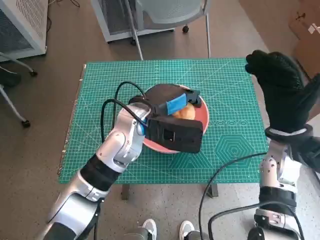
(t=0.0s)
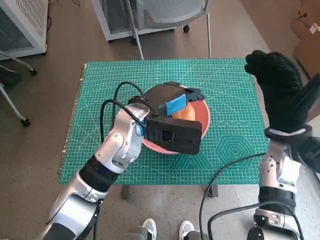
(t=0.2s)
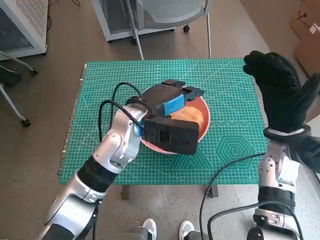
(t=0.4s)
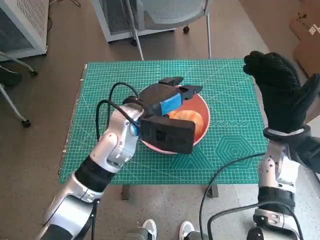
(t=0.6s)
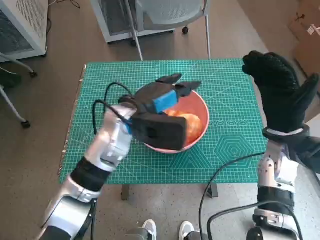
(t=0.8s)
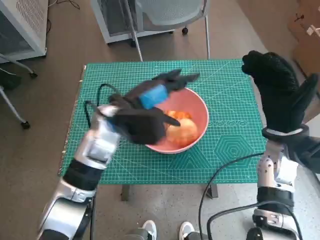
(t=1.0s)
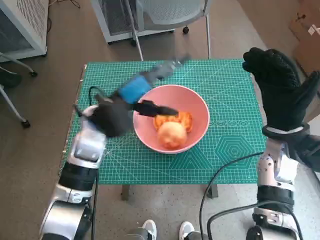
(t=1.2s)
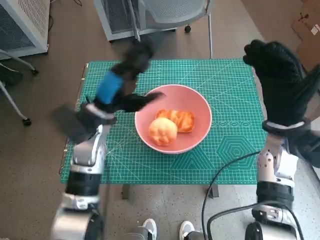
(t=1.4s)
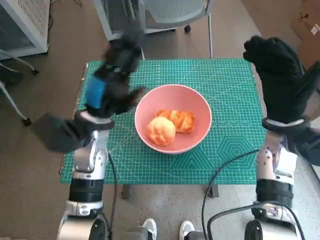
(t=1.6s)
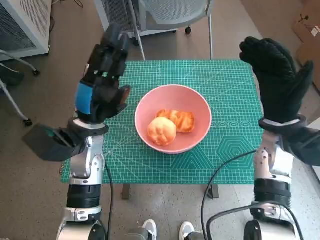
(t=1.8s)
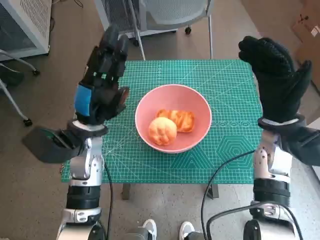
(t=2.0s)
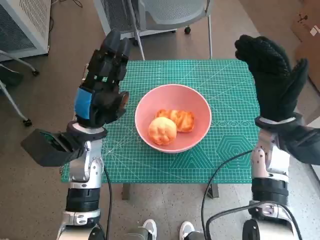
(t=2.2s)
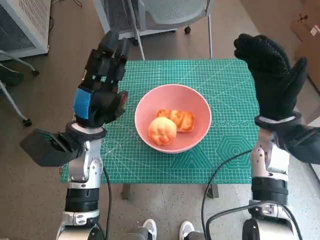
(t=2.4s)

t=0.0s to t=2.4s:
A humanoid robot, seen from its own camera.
t=0.0s to t=1.2s: The left hand goes about 5 cm to the left.
t=1.2s to t=2.4s: The left hand ends up roughly 5 cm from where it was.
